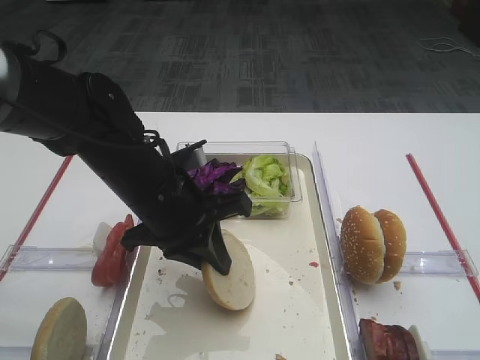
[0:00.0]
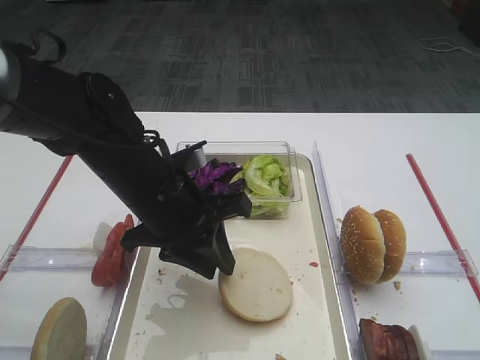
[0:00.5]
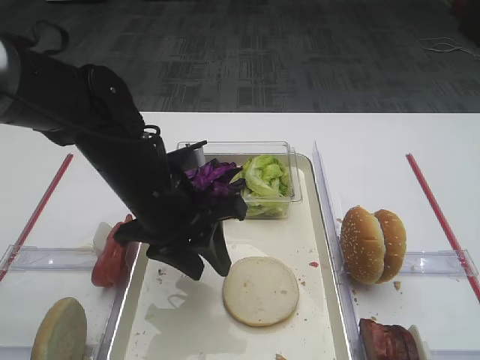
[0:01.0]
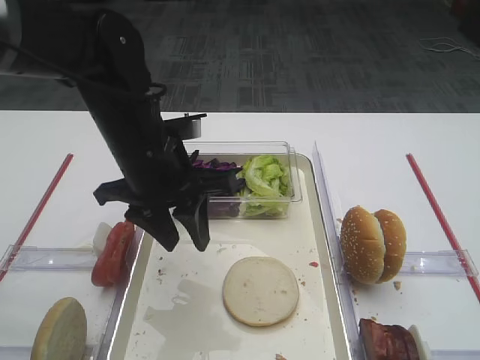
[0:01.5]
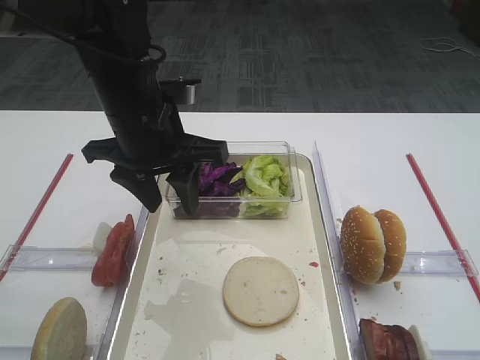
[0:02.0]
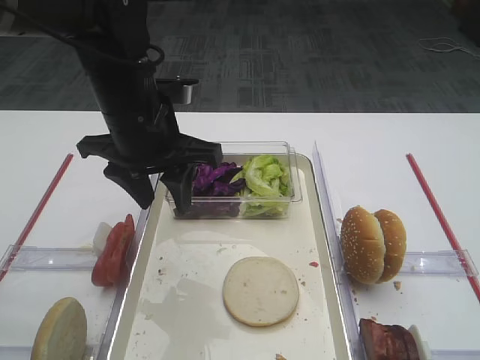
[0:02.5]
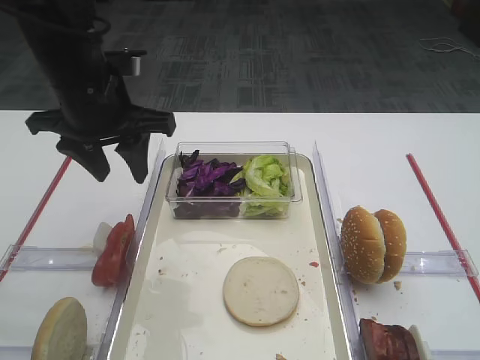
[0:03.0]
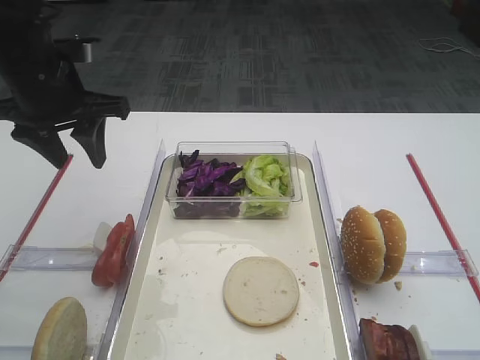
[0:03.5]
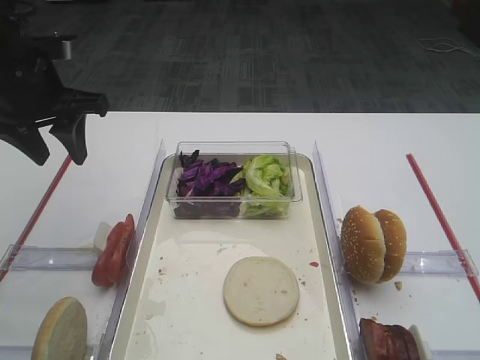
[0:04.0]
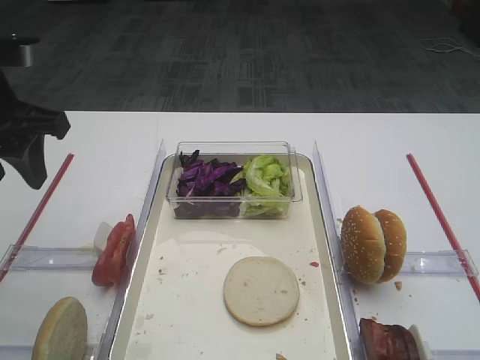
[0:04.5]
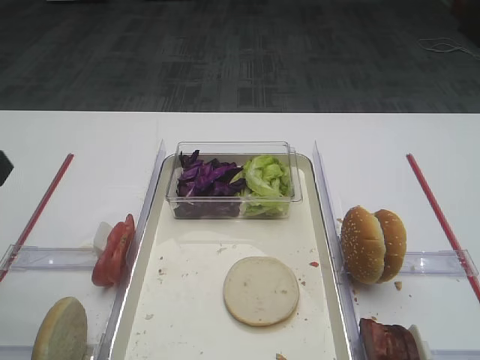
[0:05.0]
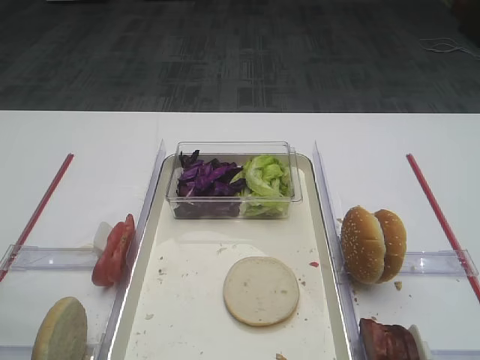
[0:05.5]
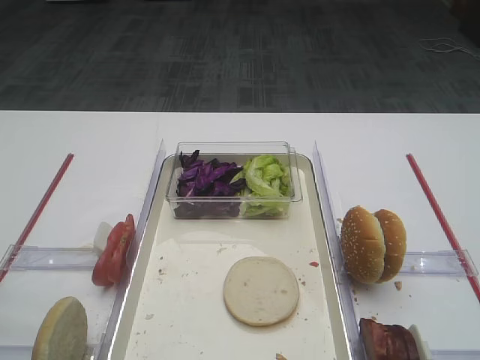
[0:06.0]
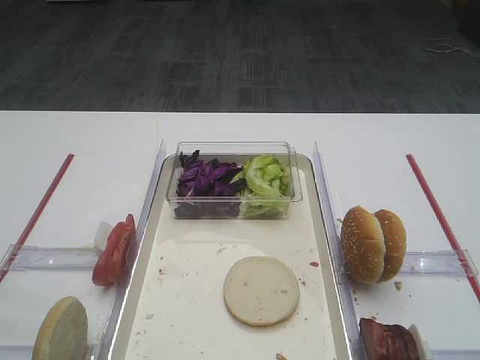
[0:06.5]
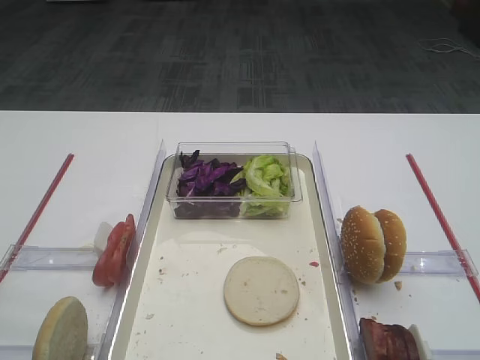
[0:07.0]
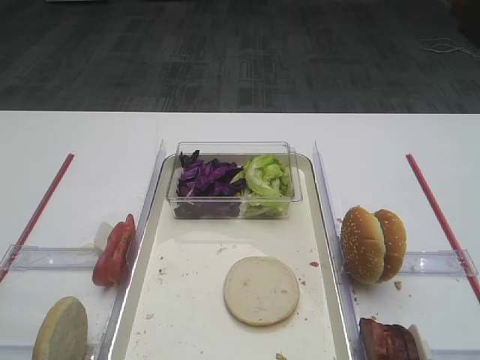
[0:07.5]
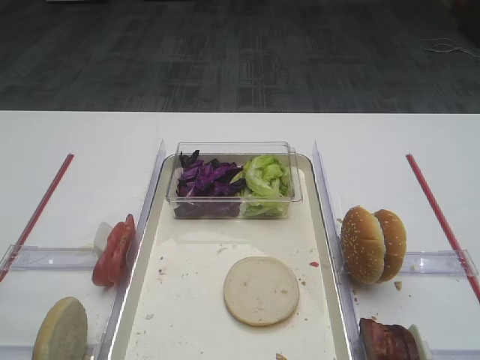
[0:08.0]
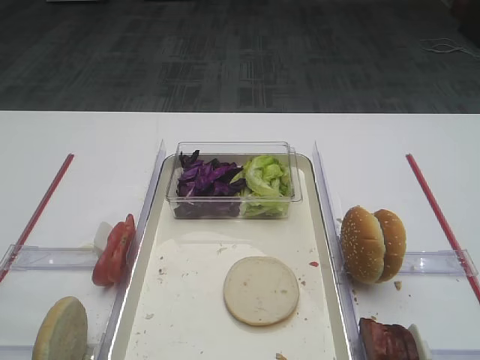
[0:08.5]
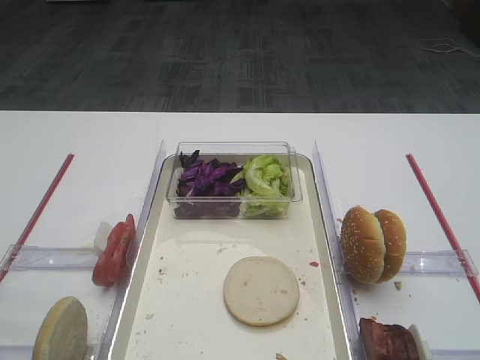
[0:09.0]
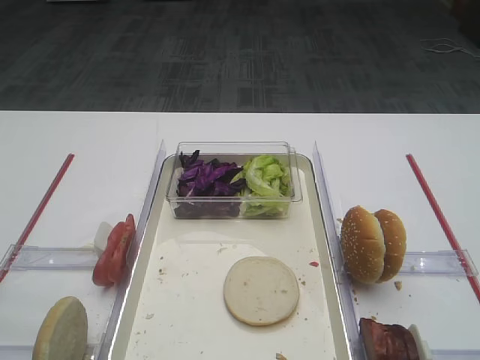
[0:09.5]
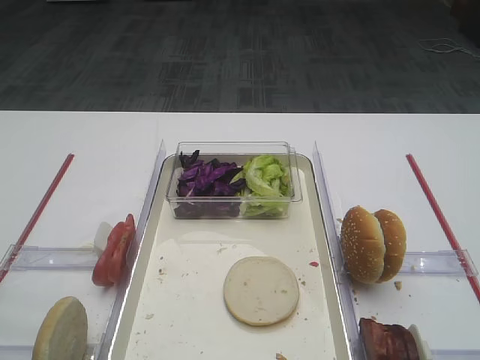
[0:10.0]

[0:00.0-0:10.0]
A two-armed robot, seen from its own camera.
0:00.0 to 0:02.0: The left gripper goes approximately 5 cm upward, and opens up.
0:02.0 to 0:04.0: The left gripper goes approximately 15 cm to the left.
0:04.0 to 0:06.0: The left gripper is displaced backward by approximately 30 cm.
0:08.0 to 0:10.0: The two grippers keep their place.
